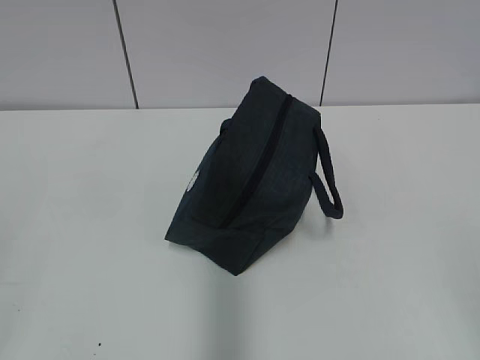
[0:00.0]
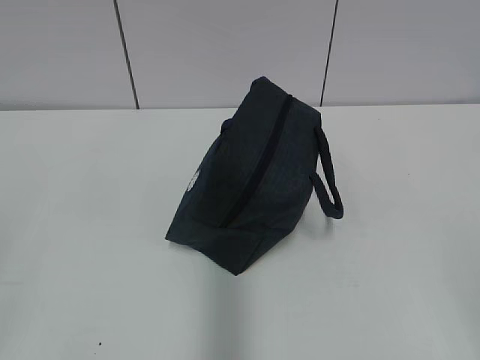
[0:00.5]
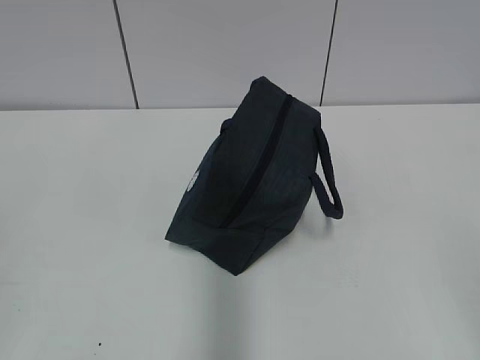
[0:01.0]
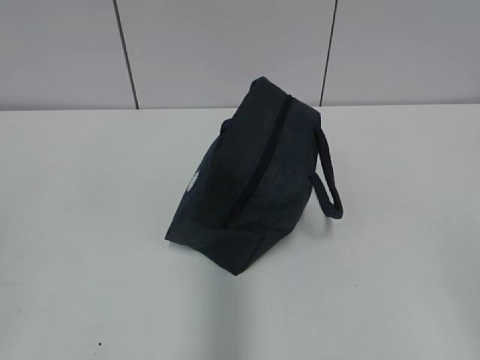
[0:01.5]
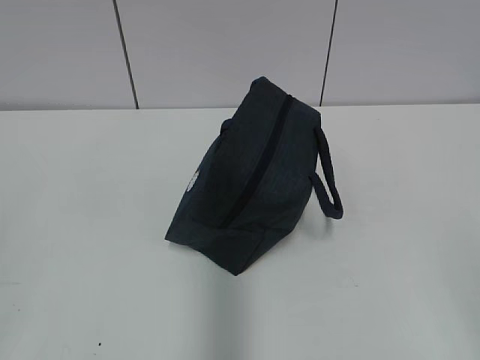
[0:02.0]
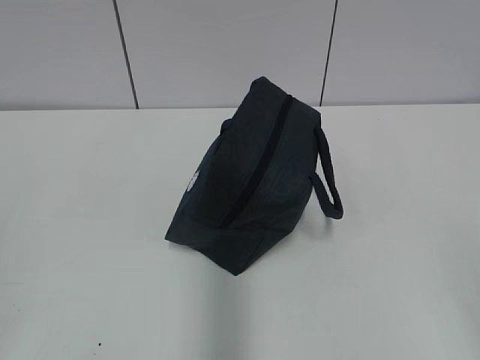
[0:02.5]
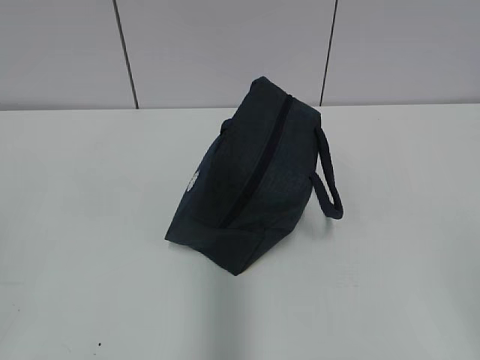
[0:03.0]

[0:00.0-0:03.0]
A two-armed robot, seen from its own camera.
0:01.5 to 0:03.0: Neither gripper changes place.
